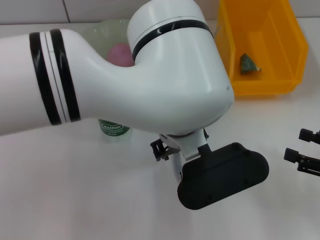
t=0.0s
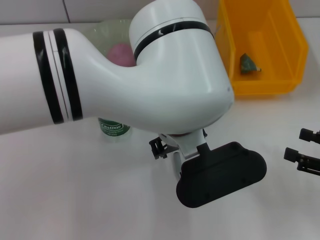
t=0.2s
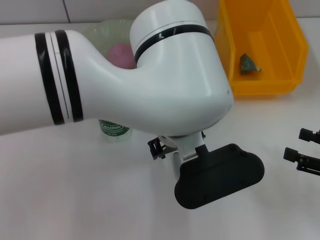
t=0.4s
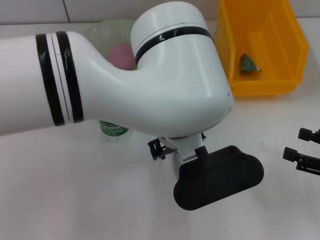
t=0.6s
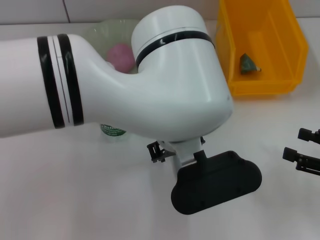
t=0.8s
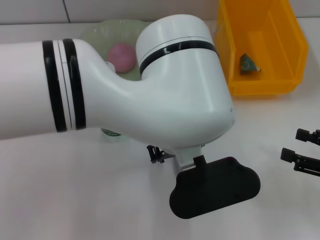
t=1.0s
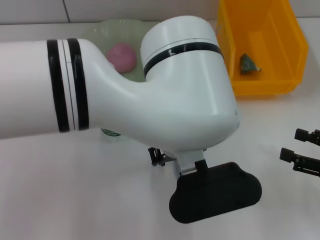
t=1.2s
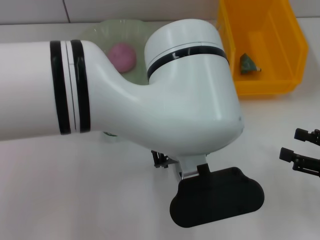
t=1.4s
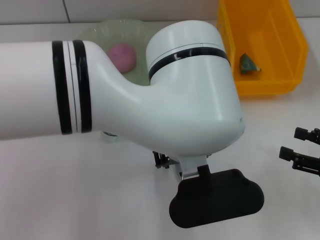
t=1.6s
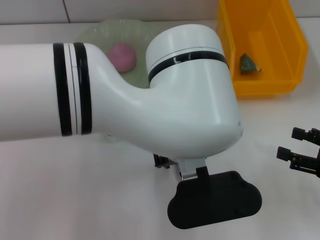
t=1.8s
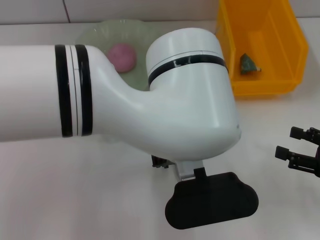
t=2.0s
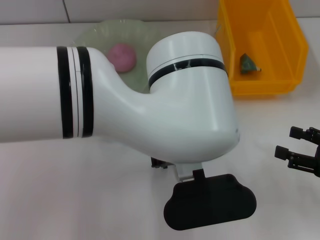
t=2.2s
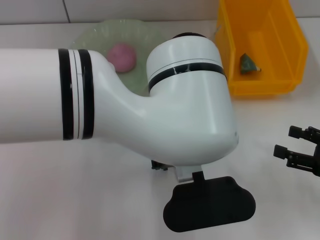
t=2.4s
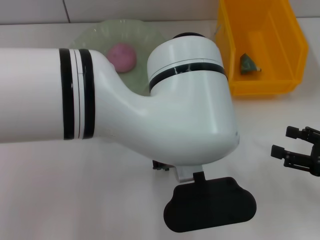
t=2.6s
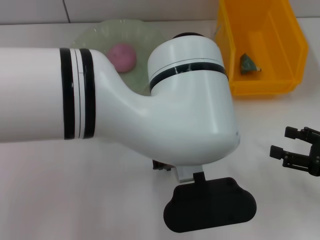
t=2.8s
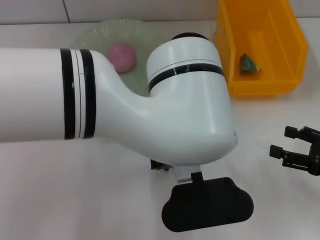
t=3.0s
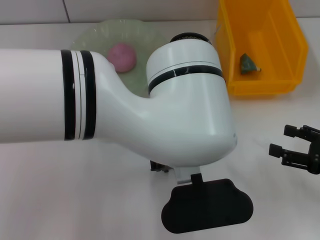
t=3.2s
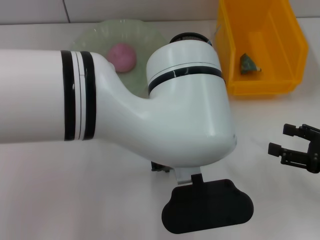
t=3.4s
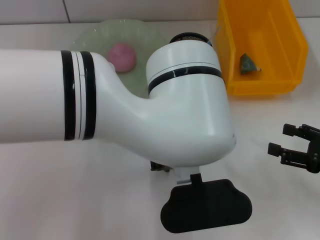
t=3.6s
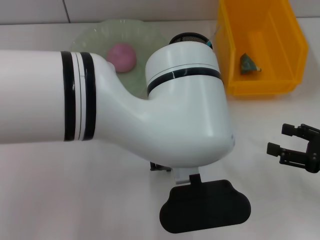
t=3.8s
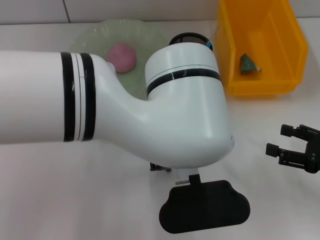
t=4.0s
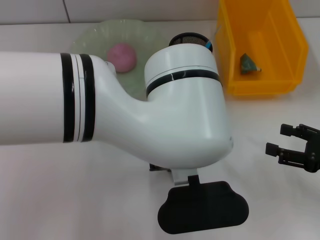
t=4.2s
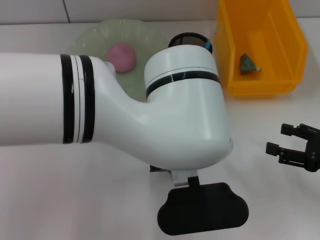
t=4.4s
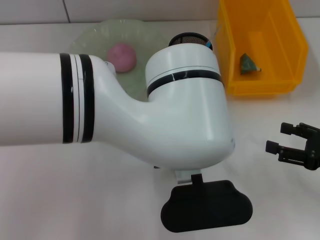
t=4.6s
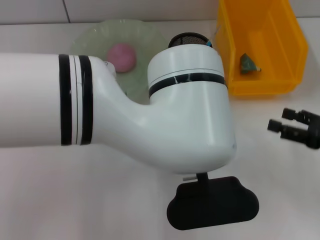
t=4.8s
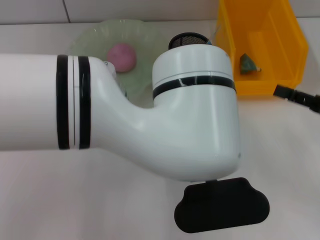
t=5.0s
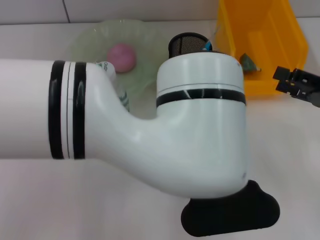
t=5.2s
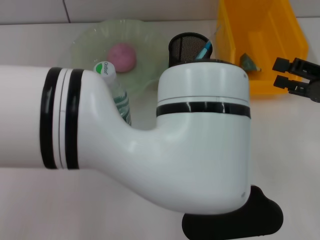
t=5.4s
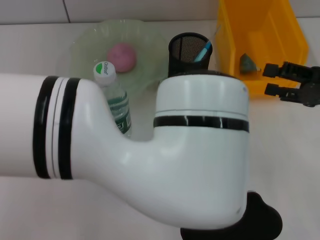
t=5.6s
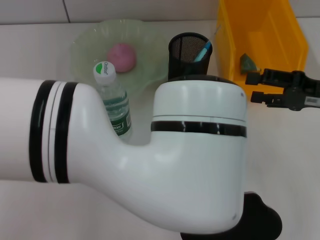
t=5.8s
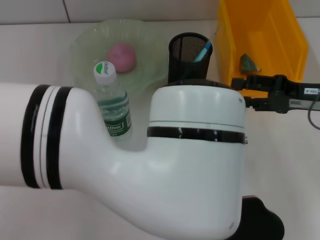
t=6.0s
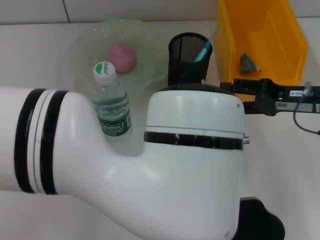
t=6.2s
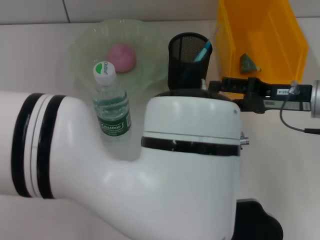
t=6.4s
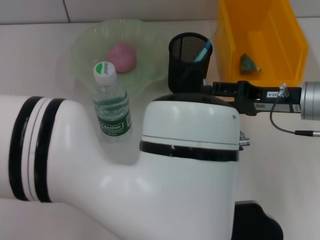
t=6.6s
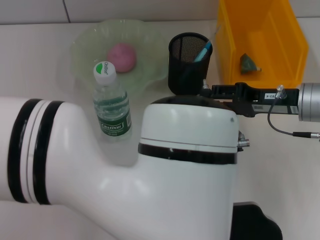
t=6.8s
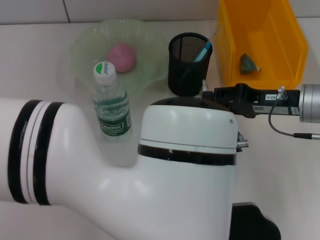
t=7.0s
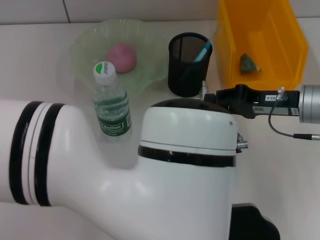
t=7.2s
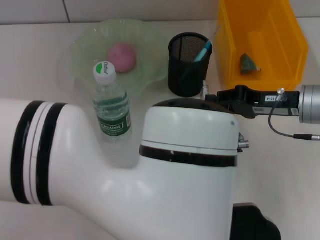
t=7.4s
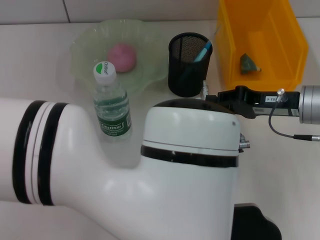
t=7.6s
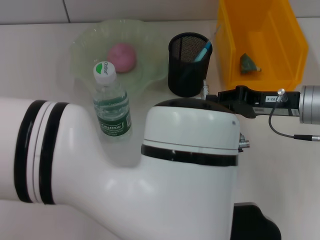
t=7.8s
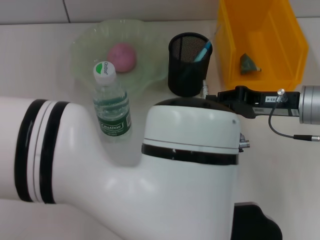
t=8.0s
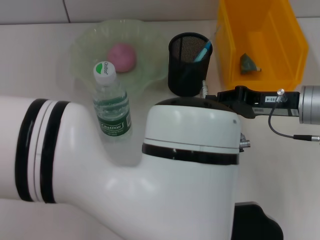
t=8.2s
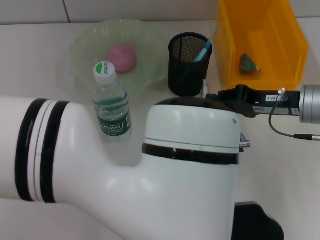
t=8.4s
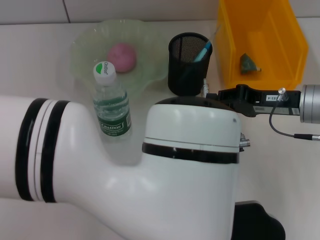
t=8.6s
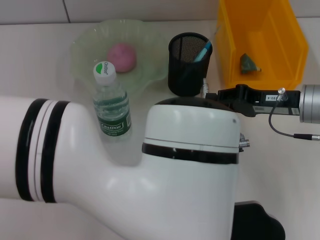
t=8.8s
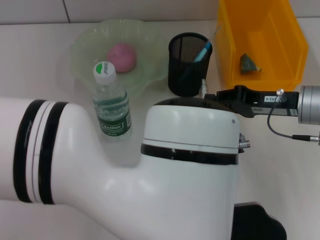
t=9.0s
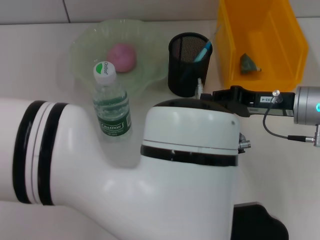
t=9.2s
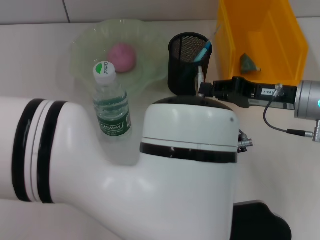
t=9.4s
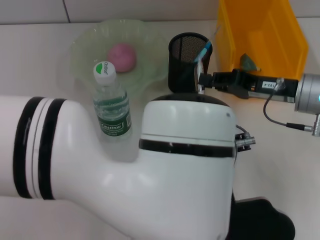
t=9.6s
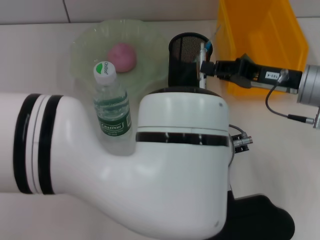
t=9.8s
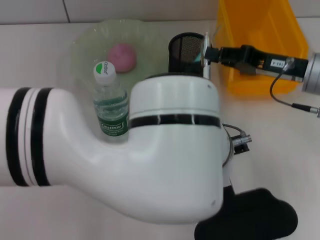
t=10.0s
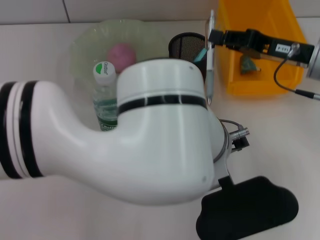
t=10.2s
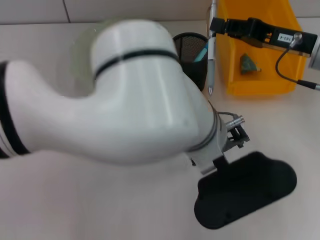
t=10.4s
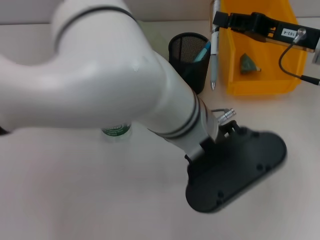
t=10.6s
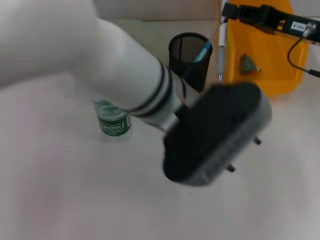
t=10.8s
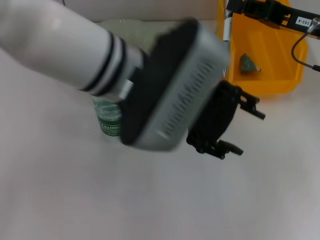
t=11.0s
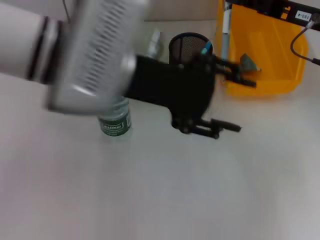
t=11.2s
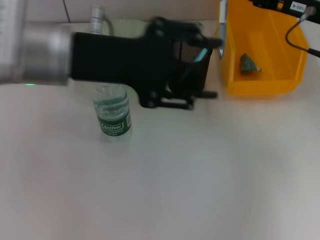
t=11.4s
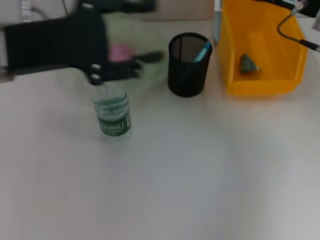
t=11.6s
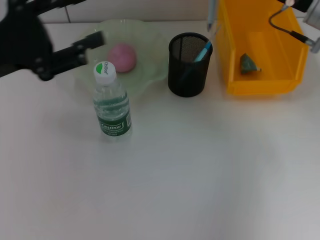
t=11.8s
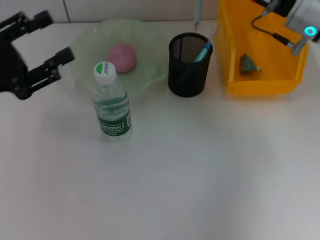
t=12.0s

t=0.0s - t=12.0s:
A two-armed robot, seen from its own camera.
Step, t=0.0s - t=4.2s: Grab the gray spring-action pen with the left hand.
Step, t=4.4s - t=9.8s: Pass the gray spring-action pen from the left hand to the right hand.
t=1.6s - t=3.0s: The grippers move only a little.
t=3.0s - t=4.4s: Both grippers stay about where they are.
t=4.4s - t=6.0s: The right gripper shifts about 10 cm forward. The left gripper moves about 5 cm.
t=6.0s - t=7.6s: The right gripper shifts by some 5 cm, and closes its fingers.
t=7.6s - t=9.0s: The left gripper opens.
t=9.0s - t=10.4s: The right gripper moves upward, roughly 5 cm.
t=10.4s - t=12.0s: The right gripper shifts by roughly 5 cm. Meanwhile the left gripper moves to the left, approximately 35 cm.

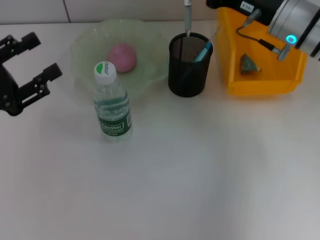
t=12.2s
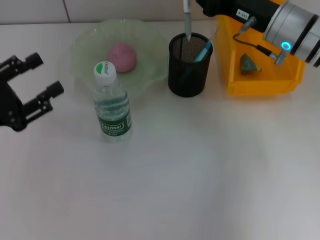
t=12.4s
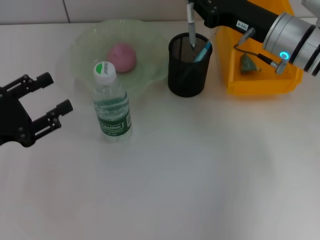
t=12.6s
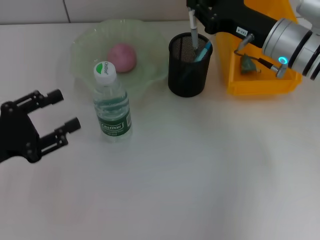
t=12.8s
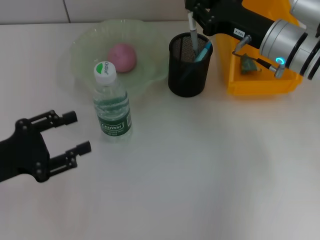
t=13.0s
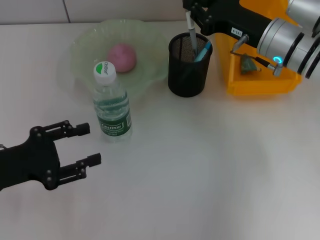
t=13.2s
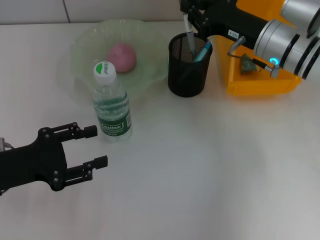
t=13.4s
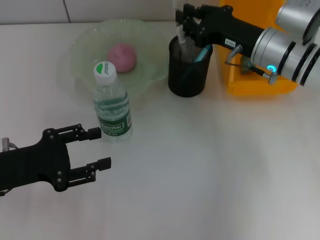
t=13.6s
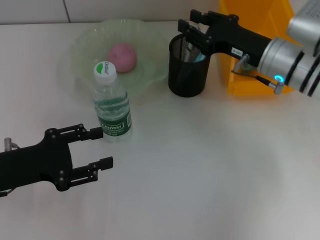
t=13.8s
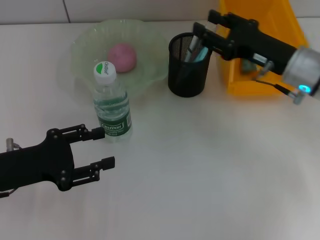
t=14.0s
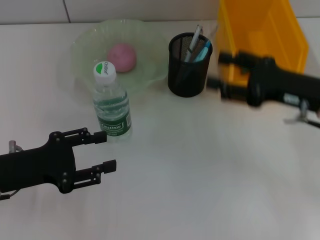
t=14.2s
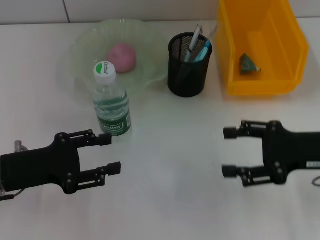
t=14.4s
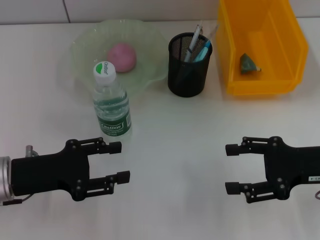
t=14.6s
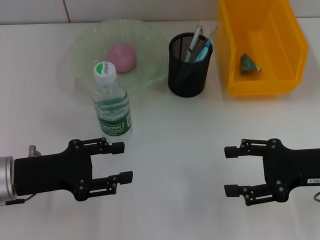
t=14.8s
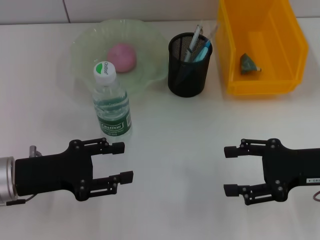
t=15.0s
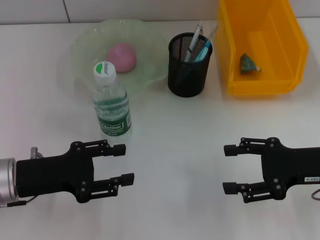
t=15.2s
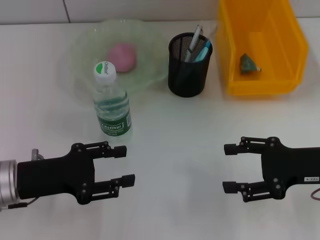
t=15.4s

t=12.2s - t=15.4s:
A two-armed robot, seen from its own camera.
t=12.2s - t=13.8s: The right gripper ends up about 5 cm from where it was; the left gripper moves about 5 cm.
t=13.8s - t=15.4s: The right gripper is displaced backward and to the right by approximately 15 cm, and opens up.

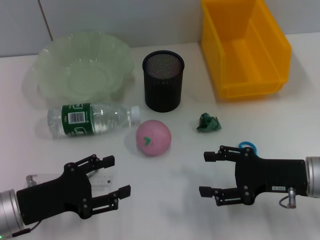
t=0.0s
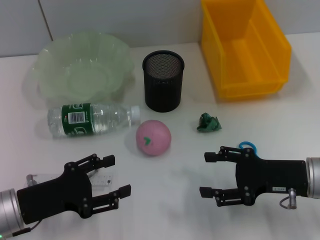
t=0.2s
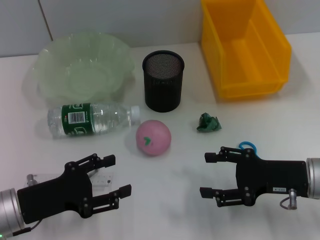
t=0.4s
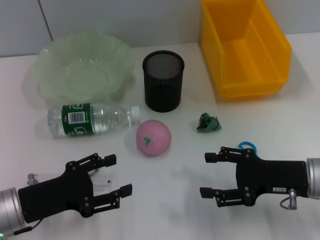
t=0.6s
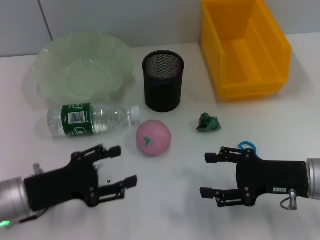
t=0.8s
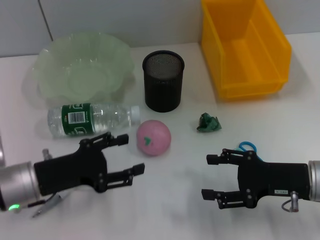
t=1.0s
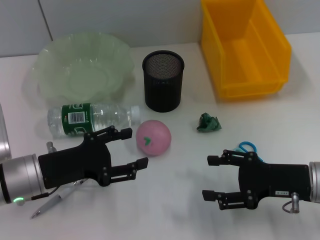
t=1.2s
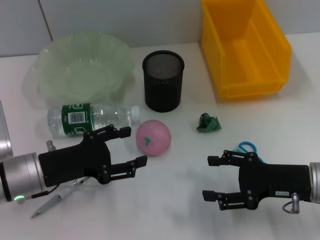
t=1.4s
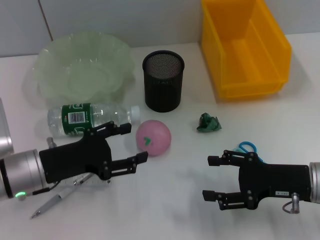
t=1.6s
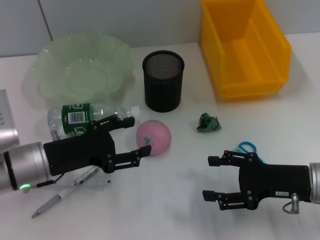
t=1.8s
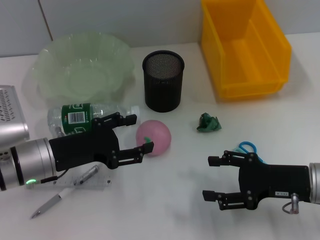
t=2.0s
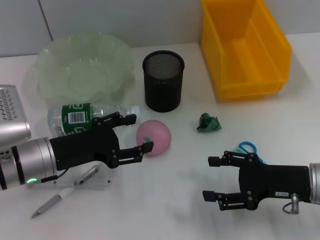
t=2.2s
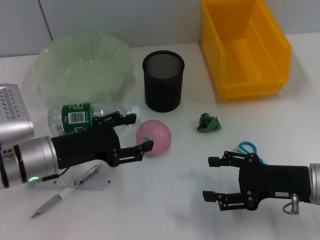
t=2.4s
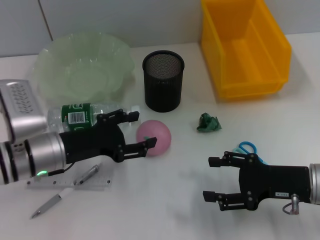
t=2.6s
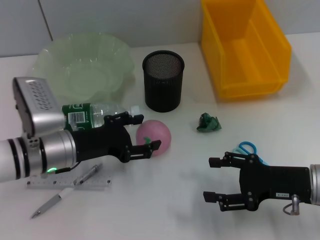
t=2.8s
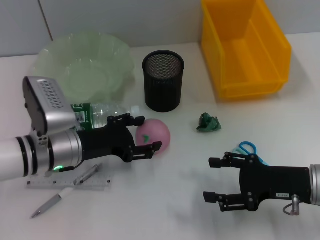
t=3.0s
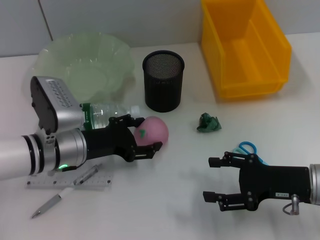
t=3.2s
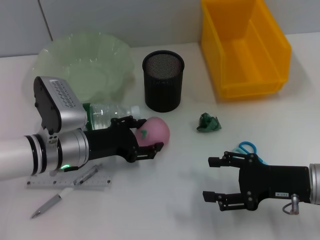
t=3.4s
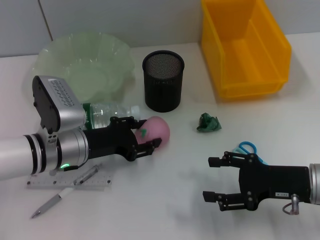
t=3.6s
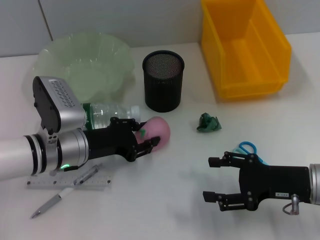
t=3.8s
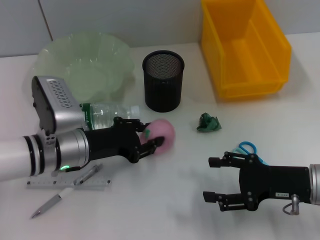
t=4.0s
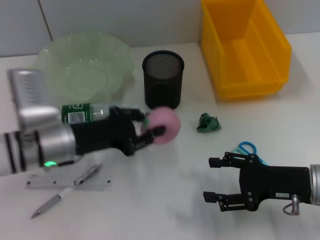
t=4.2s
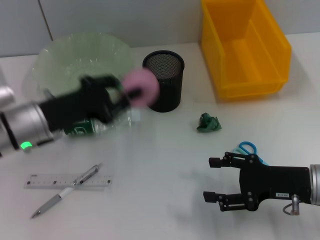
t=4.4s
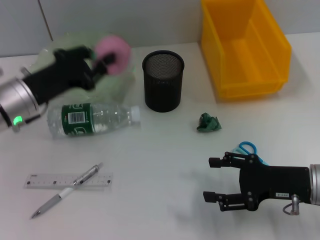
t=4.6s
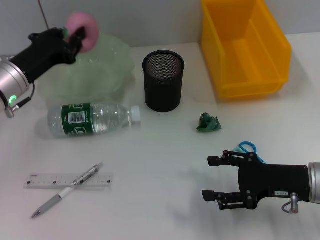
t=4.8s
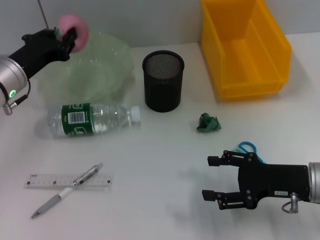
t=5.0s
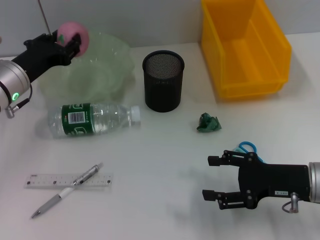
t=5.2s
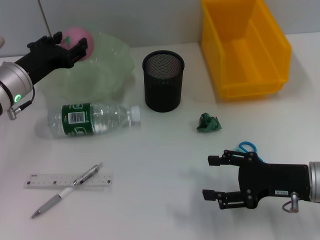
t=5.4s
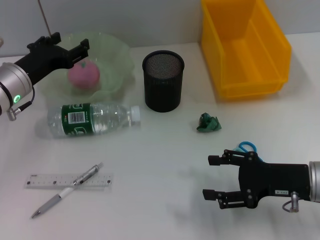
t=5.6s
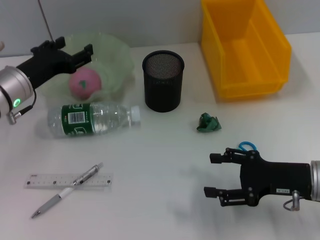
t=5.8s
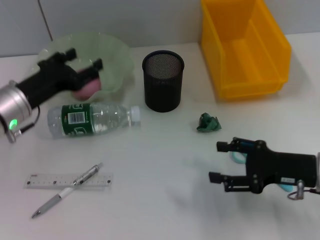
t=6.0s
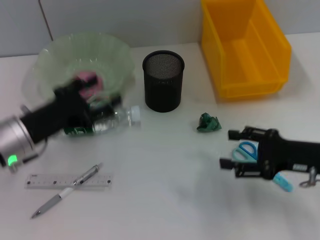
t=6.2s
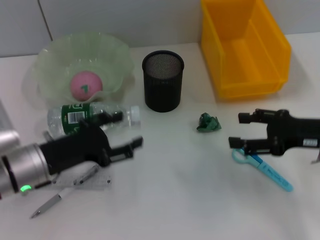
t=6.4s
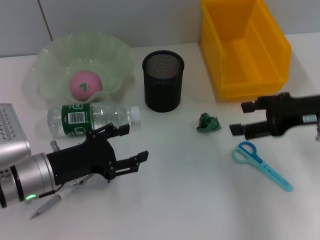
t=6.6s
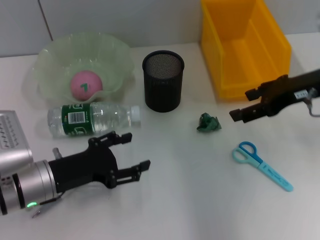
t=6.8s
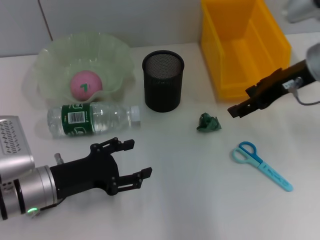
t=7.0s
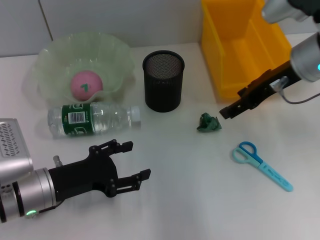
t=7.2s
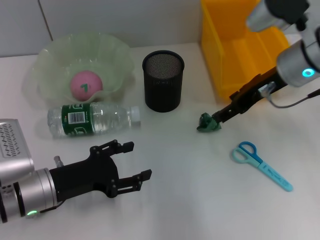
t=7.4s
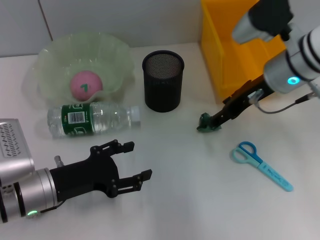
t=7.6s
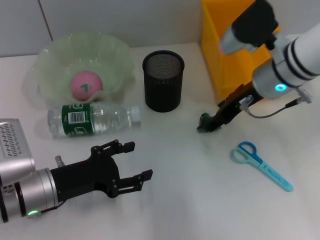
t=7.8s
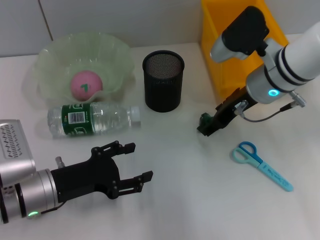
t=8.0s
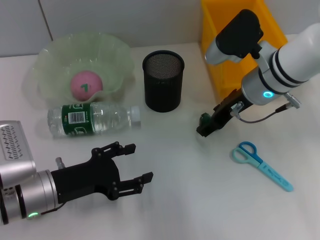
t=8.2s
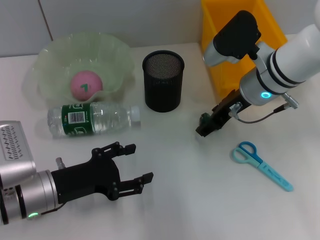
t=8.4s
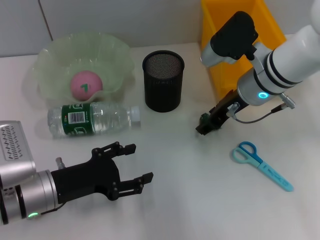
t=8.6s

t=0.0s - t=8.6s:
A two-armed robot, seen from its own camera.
Step, t=0.0s - t=3.8s: Grab the peach with the left hand.
Step, t=4.0s - t=5.8s: Place the peach into the fruit bowl with the left hand.
t=0.0s - t=1.4s: The left gripper shifts by roughly 5 cm.
t=1.4s - t=2.8s: The left gripper ends up approximately 5 cm from where it was.
t=2.8s - t=4.4s: The left gripper moves about 5 cm, and closes its fingers.
t=4.4s - t=5.8s: The left gripper moves forward, roughly 5 cm, and opens up.
t=5.8s - t=7.2s: The right gripper moves upward and forward, about 20 cm. The left gripper goes about 15 cm backward and downward.
t=7.2s - t=8.6s: The right gripper goes approximately 10 cm downward and to the left.
